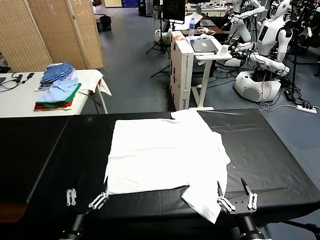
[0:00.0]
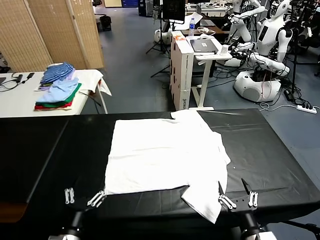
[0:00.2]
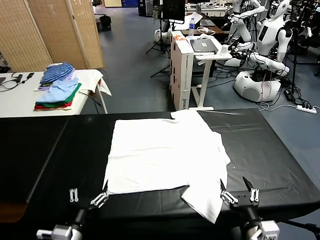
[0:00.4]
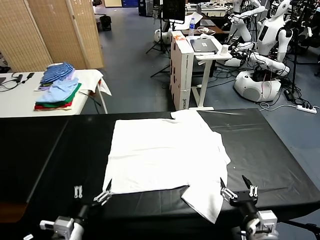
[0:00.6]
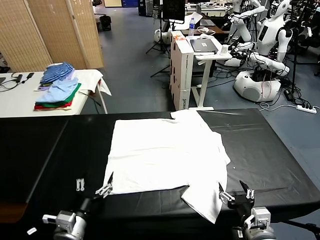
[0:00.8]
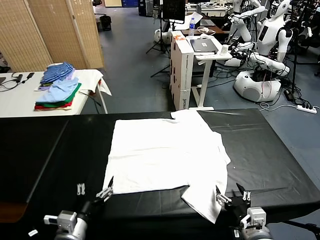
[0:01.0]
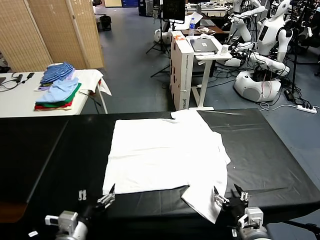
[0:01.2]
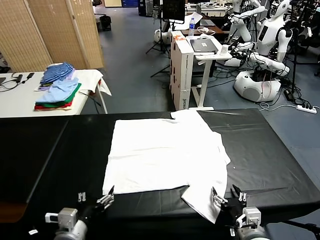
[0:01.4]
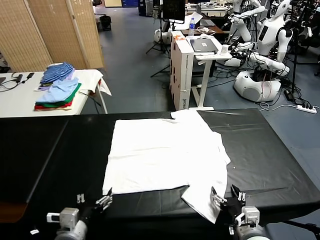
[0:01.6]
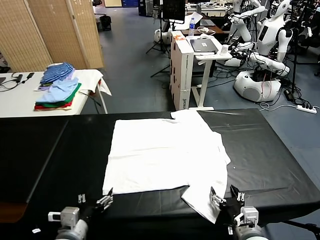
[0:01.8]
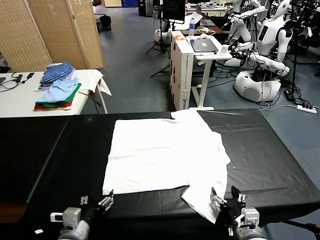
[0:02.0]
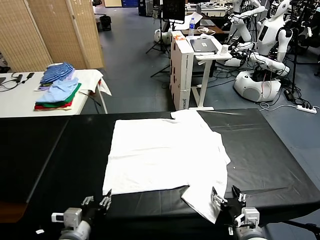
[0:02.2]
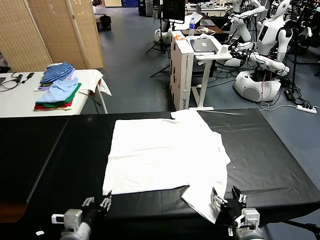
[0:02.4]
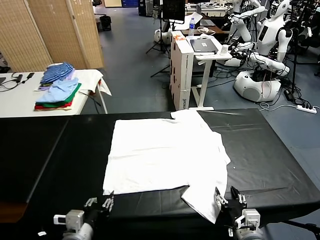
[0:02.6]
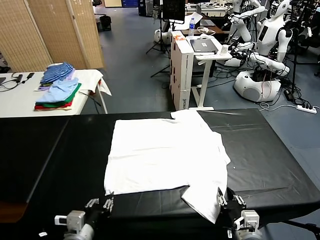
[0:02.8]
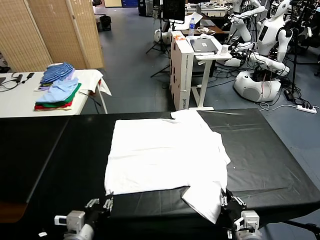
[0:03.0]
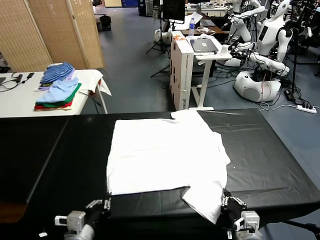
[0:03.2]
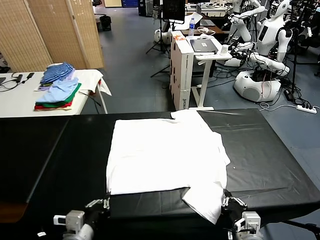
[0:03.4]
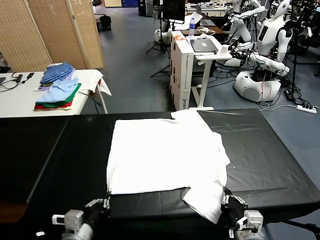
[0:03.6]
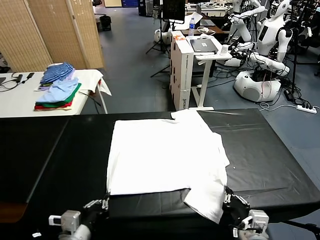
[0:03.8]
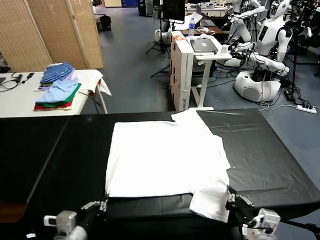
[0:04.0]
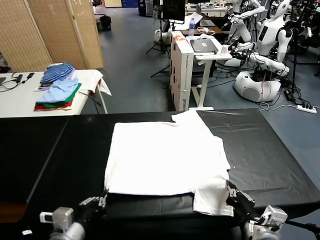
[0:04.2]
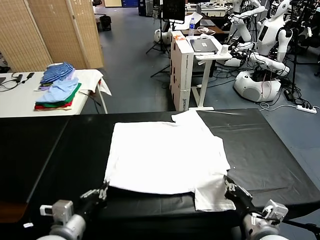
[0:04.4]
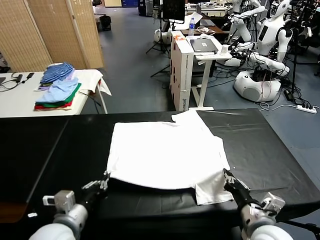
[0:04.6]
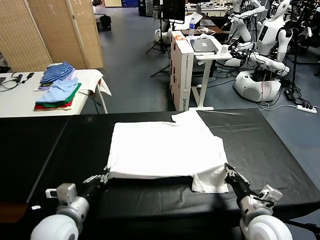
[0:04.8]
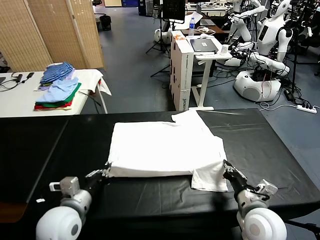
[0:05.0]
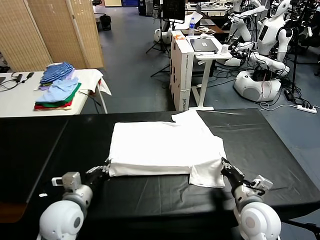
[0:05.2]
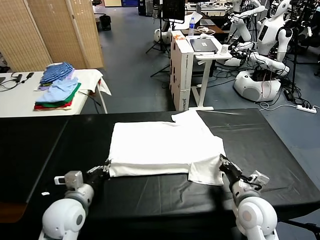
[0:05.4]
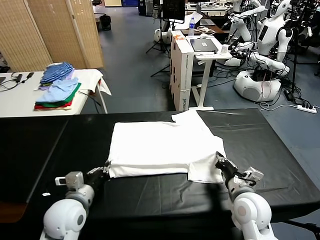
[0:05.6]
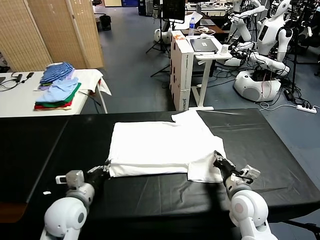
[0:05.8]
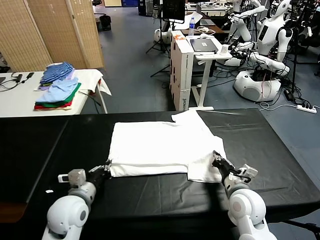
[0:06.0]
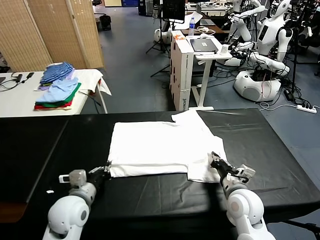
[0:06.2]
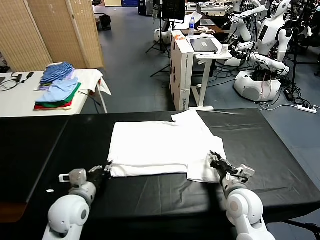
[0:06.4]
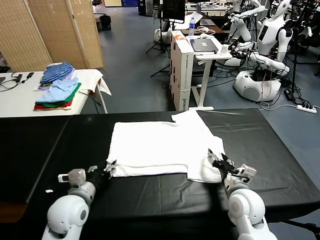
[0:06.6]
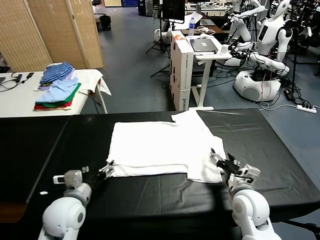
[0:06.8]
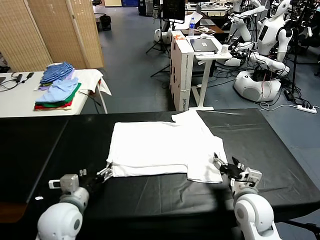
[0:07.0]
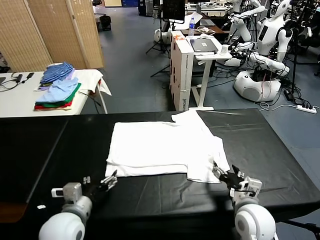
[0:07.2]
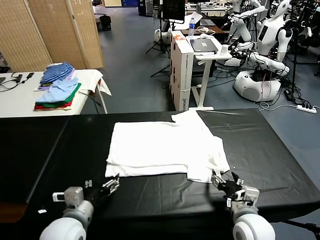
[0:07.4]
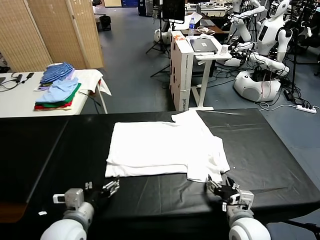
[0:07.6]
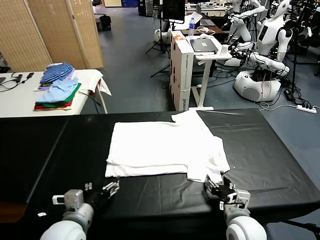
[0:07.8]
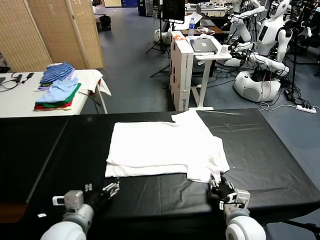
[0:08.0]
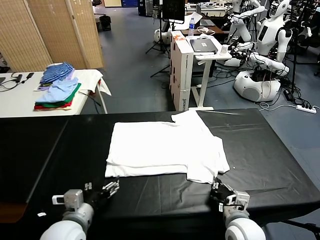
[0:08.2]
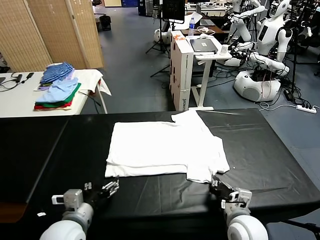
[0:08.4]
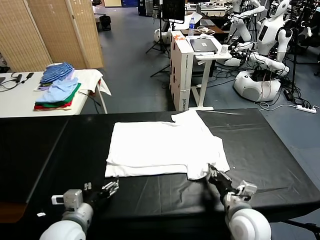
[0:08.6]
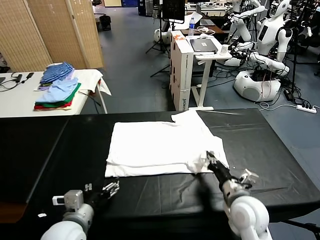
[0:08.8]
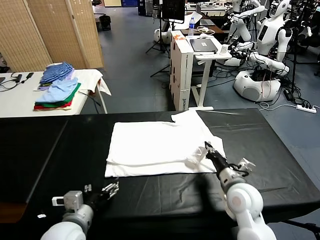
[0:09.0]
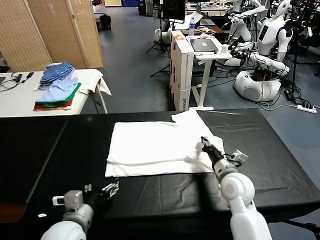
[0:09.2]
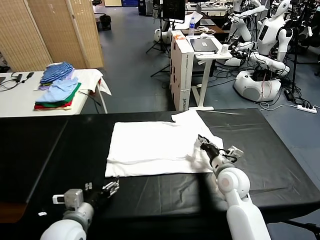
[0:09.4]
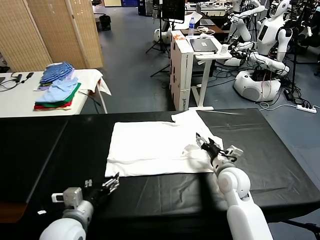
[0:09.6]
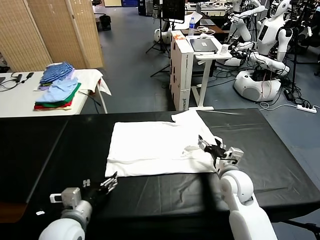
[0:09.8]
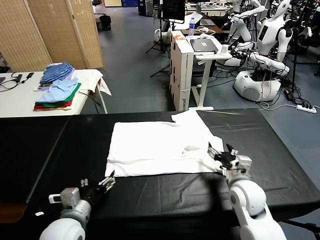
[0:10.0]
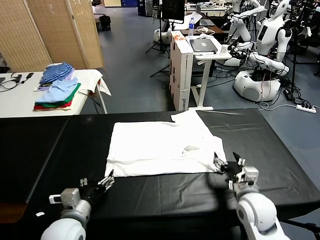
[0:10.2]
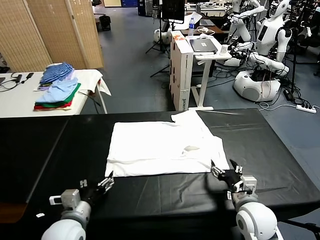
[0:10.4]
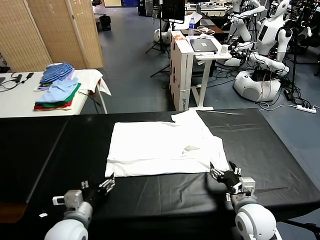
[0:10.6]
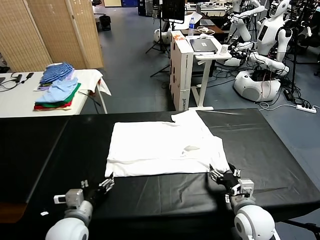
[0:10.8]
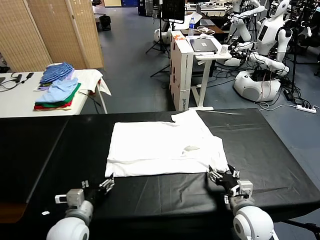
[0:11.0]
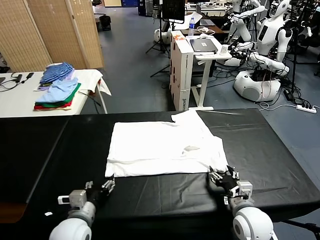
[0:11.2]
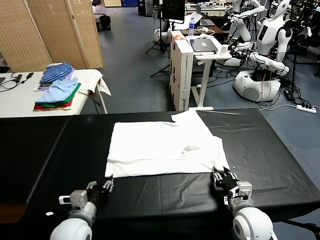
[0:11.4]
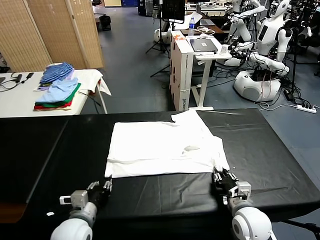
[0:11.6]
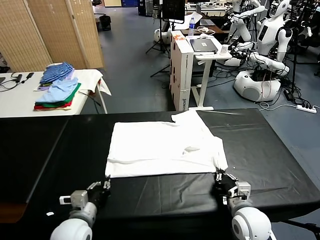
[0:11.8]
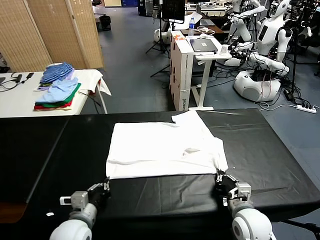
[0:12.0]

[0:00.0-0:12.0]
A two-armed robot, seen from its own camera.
Task of the whole recording: fold and organize the clothes.
Step, 0.0 to 3.6 s: use both grippers simultaneously to clamp the lower edge of the clothing fabric.
Step, 3.8 to 6.4 s: use both grippers to drag the lower edge of the fabric forward and fold it over the upper edge.
1.6 to 3.0 s: The right gripper closes its fingers; the left gripper closes up.
3.0 to 4.4 s: Both grippers travel together upward, roughly 5 cm.
4.4 to 6.0 s: Both grippers travel together forward, about 10 cm.
6.0 to 7.6 s: The grippers both shift backward by some 5 cm. The left gripper opens up. The right gripper opens up.
7.6 to 9.0 s: The right gripper is displaced forward by approximately 10 cm, and closes.
9.0 to 10.4 s: The right gripper goes roughly 10 cm backward, and opens.
10.4 to 12.0 s: The left gripper closes. Meanwhile the right gripper closes up.

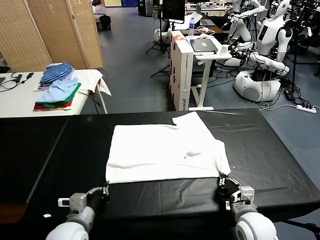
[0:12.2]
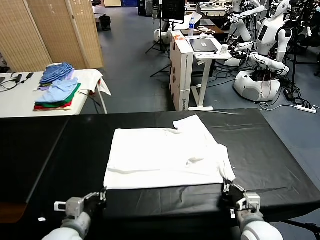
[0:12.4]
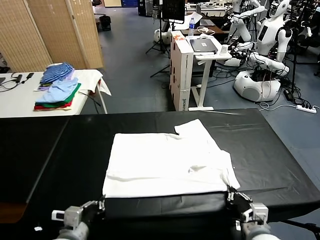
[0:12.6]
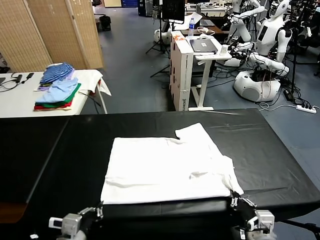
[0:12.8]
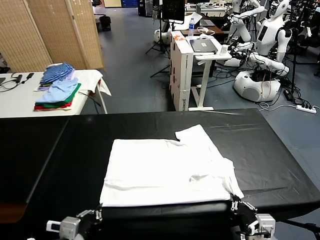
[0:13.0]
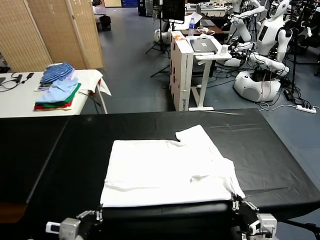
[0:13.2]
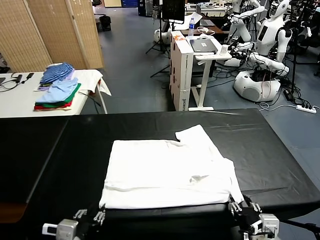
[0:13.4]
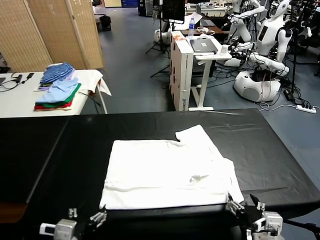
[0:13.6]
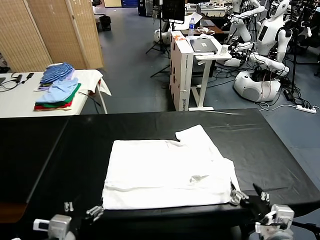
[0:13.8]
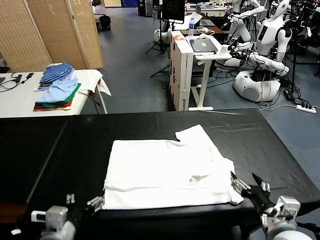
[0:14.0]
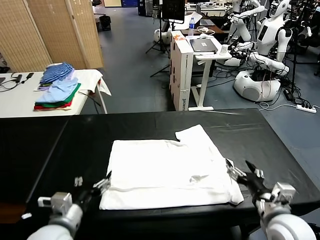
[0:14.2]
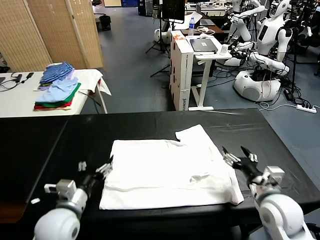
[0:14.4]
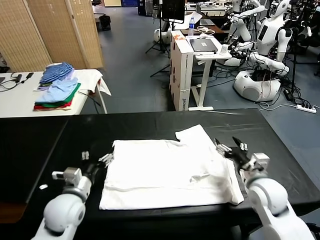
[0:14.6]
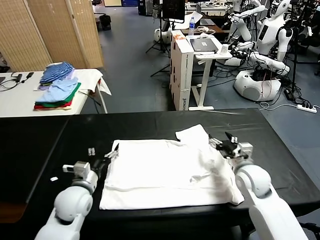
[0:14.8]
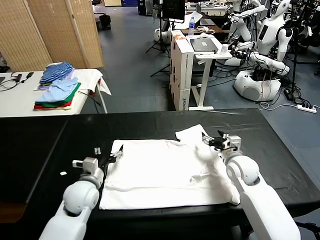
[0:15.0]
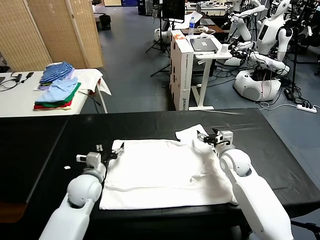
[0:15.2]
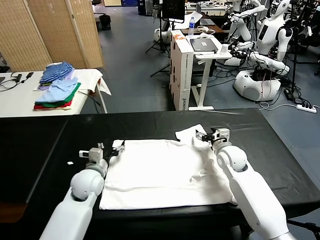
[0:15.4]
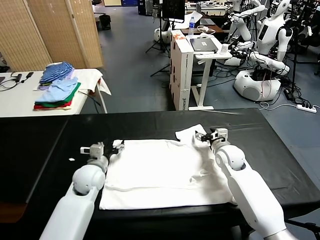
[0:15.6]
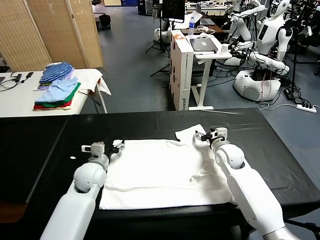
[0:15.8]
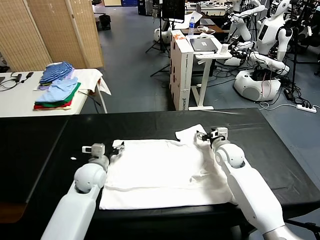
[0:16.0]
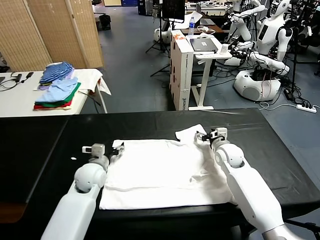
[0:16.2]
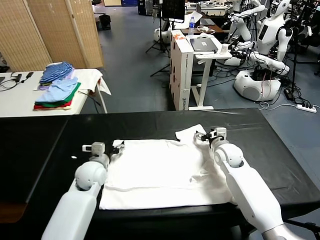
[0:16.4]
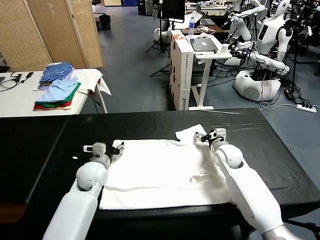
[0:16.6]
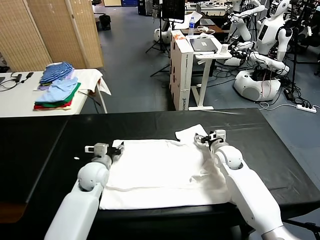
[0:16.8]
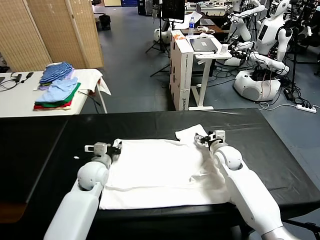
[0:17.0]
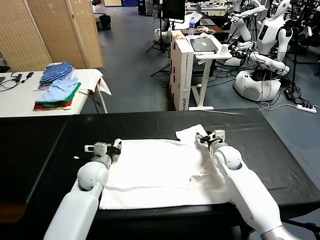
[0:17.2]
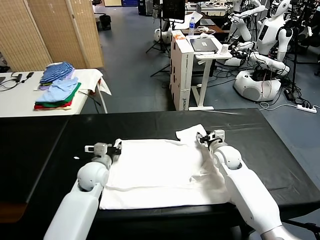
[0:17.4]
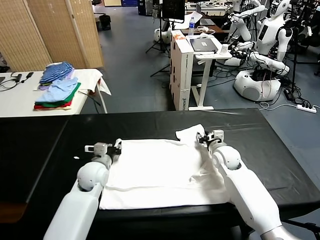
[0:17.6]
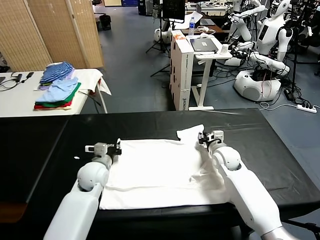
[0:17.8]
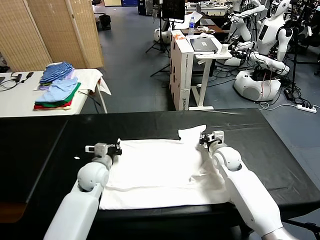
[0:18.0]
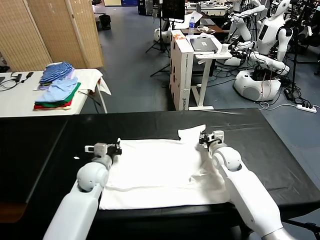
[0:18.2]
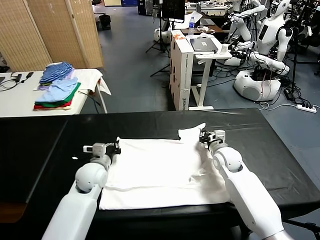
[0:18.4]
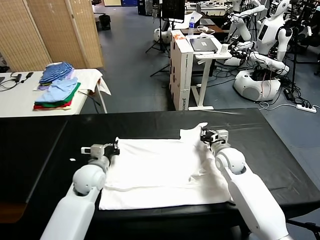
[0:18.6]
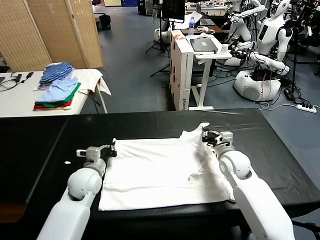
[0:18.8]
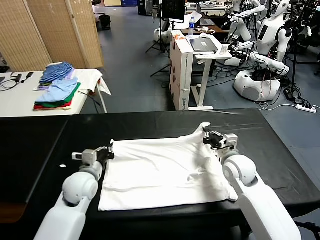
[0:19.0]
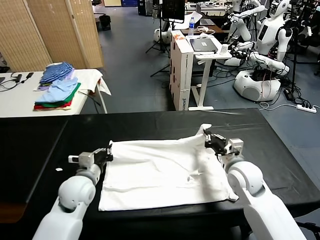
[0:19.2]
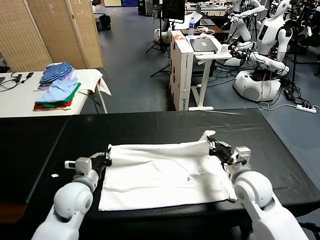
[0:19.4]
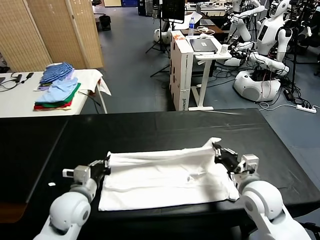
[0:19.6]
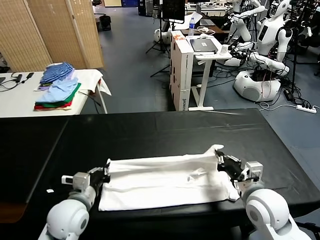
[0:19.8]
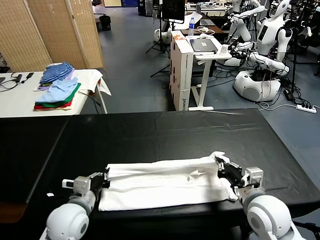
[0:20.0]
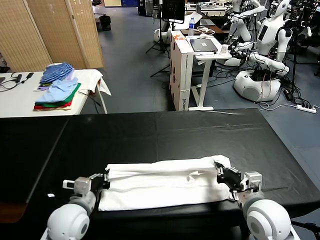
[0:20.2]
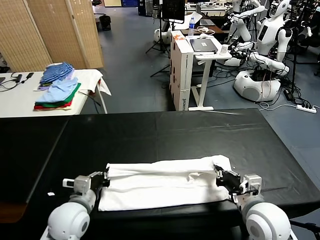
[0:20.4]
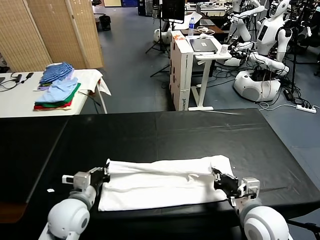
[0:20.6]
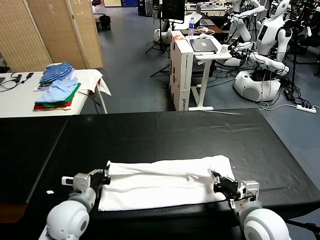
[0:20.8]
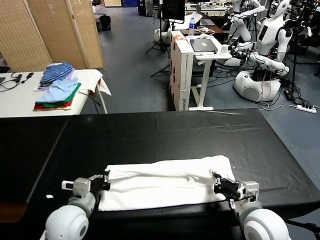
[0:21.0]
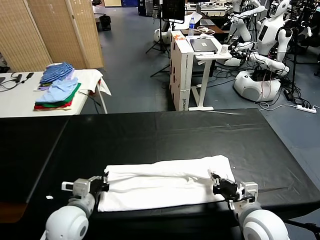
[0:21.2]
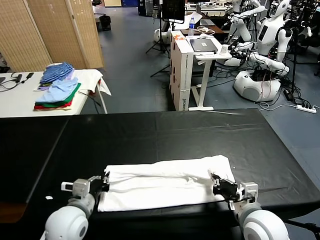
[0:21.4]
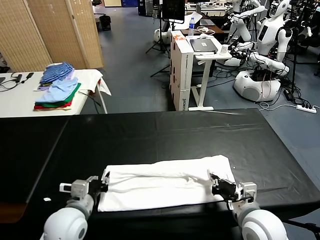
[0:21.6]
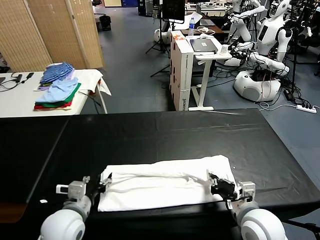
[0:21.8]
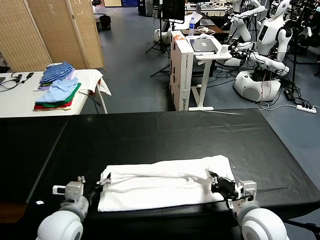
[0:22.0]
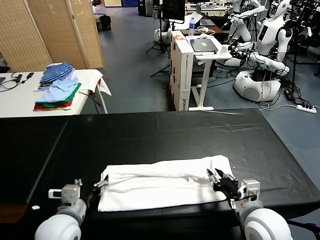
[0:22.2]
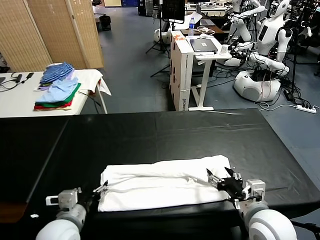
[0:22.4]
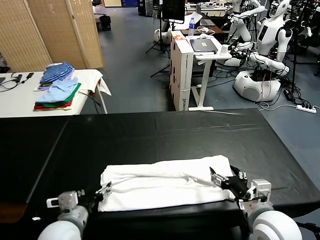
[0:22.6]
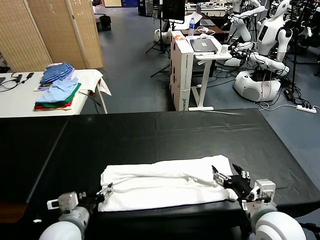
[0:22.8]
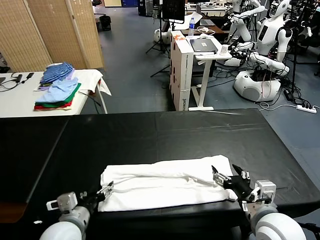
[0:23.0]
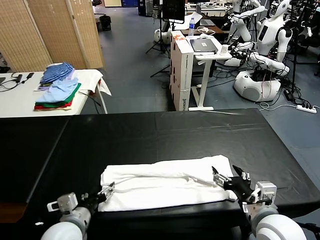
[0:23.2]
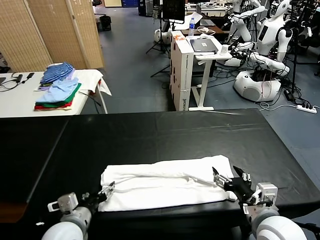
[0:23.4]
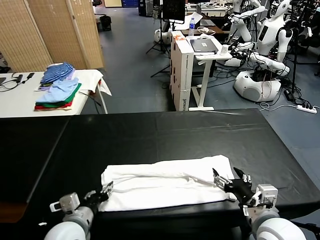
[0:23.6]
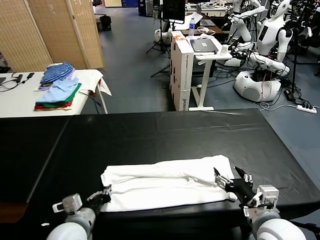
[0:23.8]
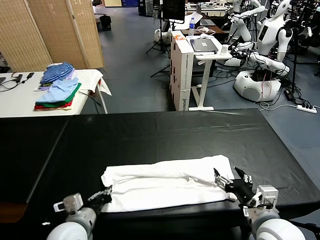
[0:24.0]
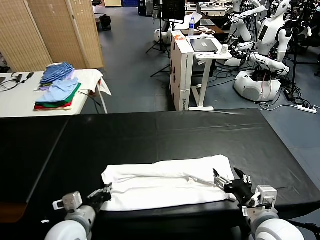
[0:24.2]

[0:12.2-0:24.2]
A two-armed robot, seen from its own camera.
Task of the whole recording: fold and organize the clothes.
Step, 13.4 to 18.4 s: use both grippers simultaneously to clamp the upper edge of the clothing fabric.
Step, 18.6 to 22.2 s: use both grippers to drag the upper edge of the fabric backward and fold it over the lower edge.
12.2 to 13.8 s: The left gripper shifts about 10 cm backward and upward, and opens; the right gripper travels upward by roughly 10 cm, and opens its fingers.
13.8 to 15.2 s: Both grippers move forward, some 25 cm.
15.2 to 16.6 s: The grippers stay close to where they were, moving slightly.
16.6 to 18.2 s: The right gripper closes up. The left gripper closes up.
18.2 to 19.8 s: Both grippers travel together backward, approximately 20 cm.
19.8 to 21.2 s: The grippers make only small movements.
21.2 to 22.6 s: The left gripper opens, while the right gripper opens up.
22.6 to 24.2 s: The left gripper closes its fingers.
